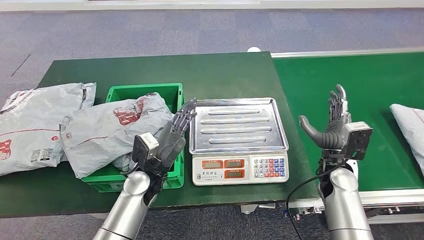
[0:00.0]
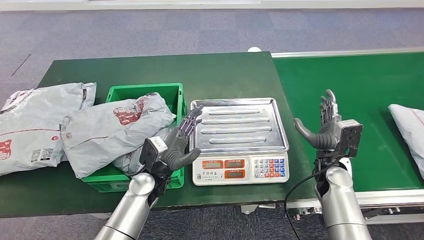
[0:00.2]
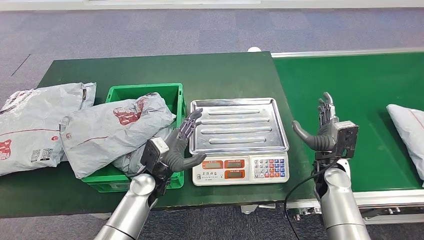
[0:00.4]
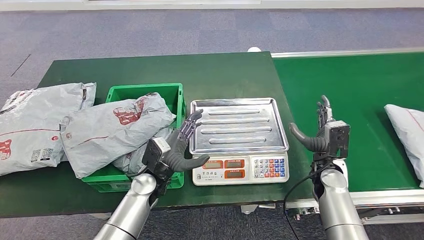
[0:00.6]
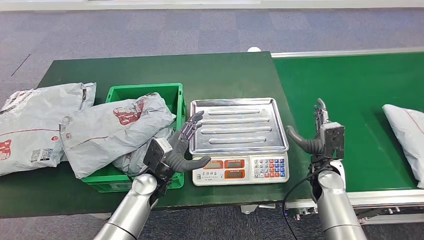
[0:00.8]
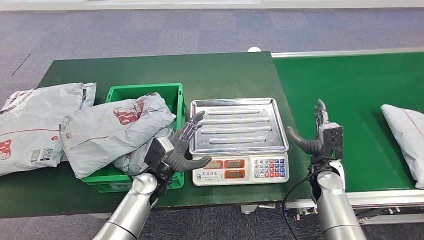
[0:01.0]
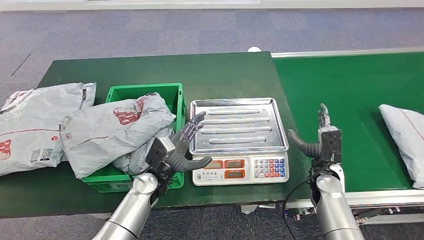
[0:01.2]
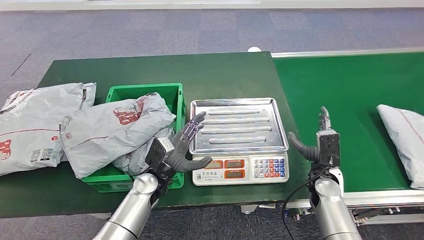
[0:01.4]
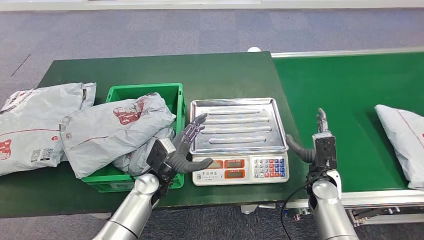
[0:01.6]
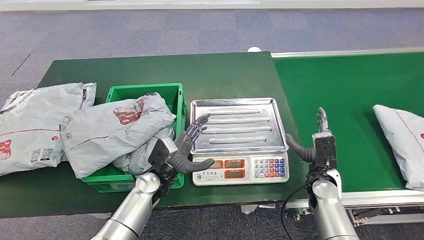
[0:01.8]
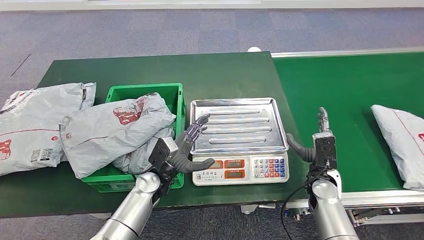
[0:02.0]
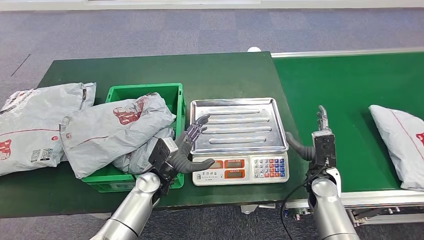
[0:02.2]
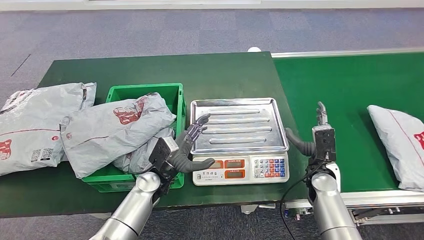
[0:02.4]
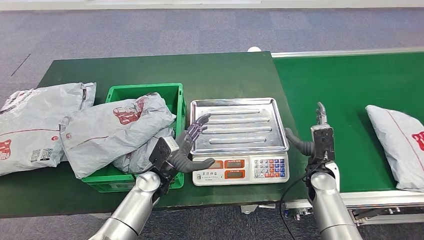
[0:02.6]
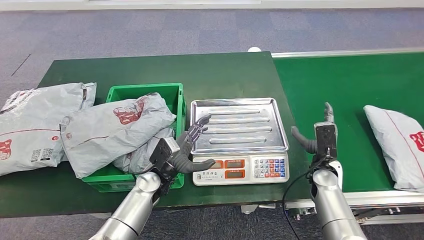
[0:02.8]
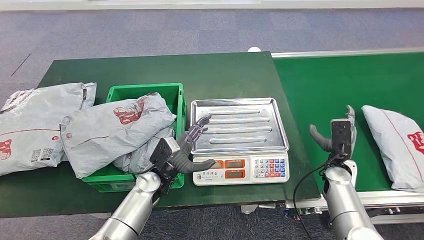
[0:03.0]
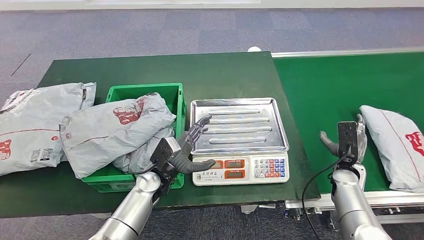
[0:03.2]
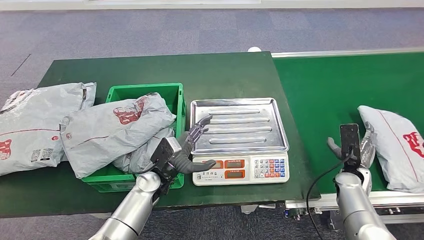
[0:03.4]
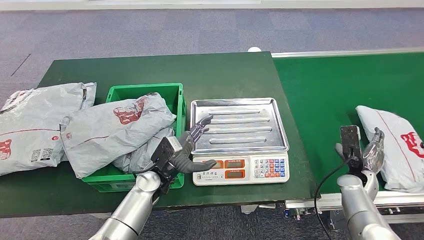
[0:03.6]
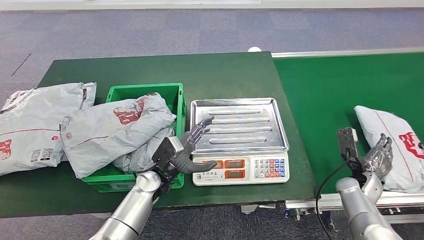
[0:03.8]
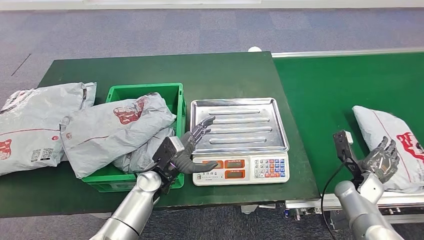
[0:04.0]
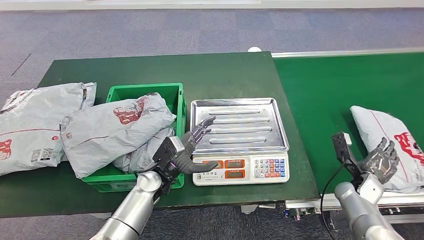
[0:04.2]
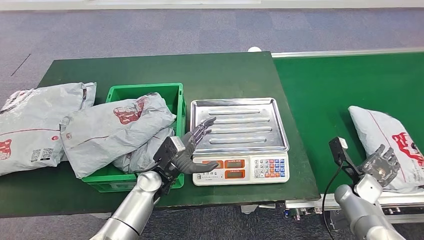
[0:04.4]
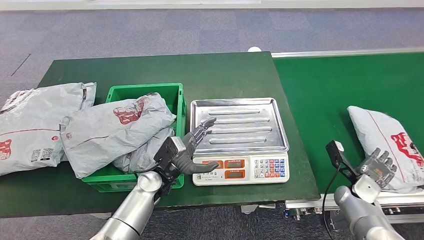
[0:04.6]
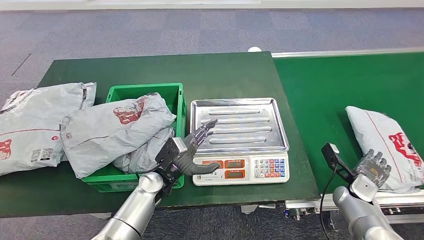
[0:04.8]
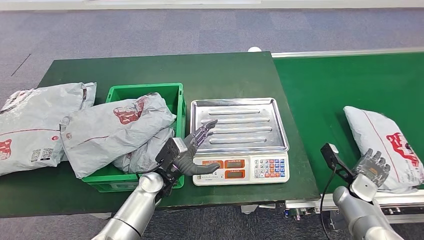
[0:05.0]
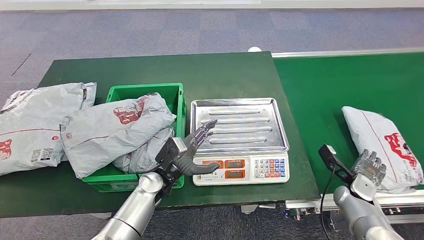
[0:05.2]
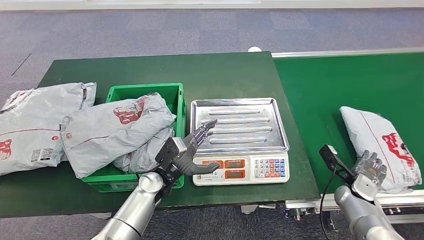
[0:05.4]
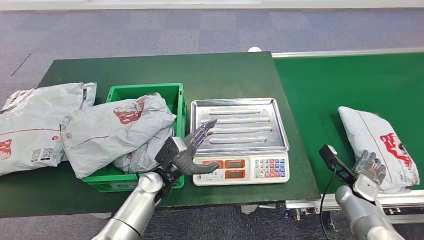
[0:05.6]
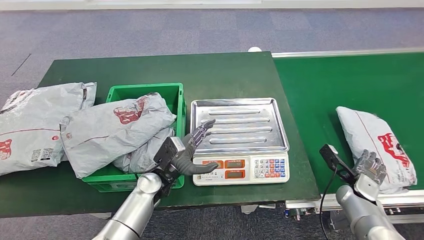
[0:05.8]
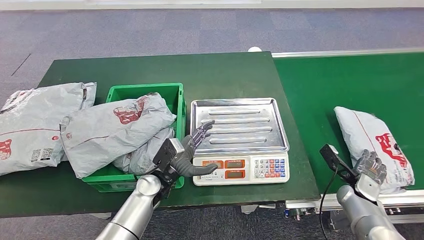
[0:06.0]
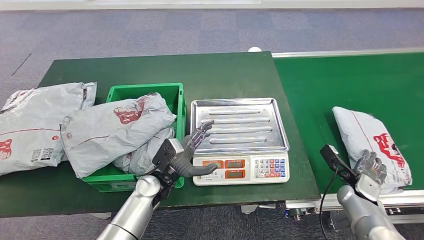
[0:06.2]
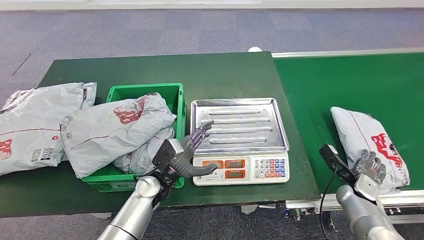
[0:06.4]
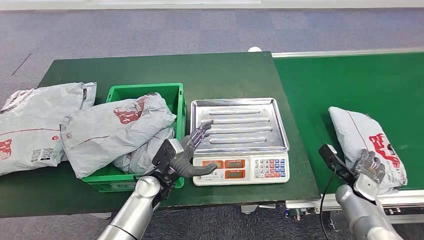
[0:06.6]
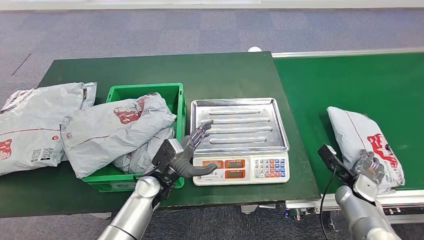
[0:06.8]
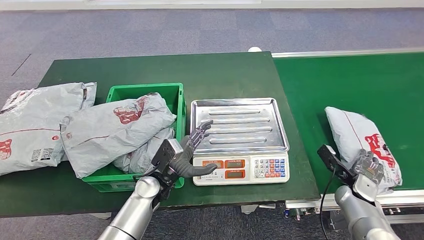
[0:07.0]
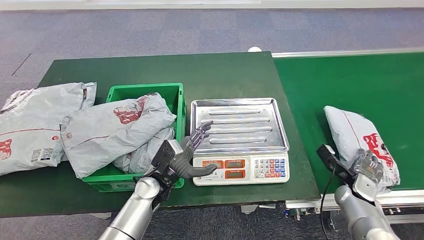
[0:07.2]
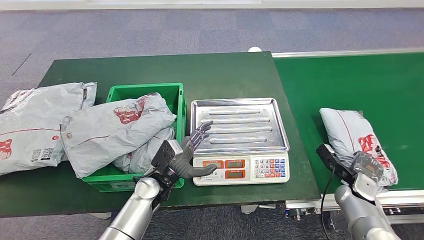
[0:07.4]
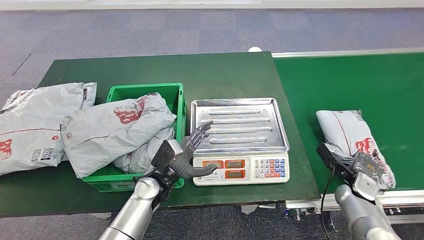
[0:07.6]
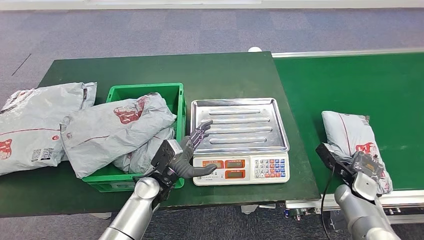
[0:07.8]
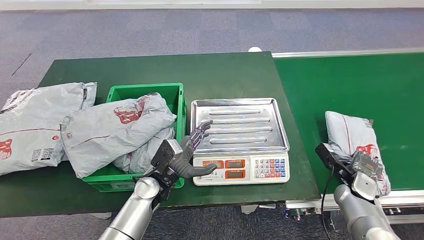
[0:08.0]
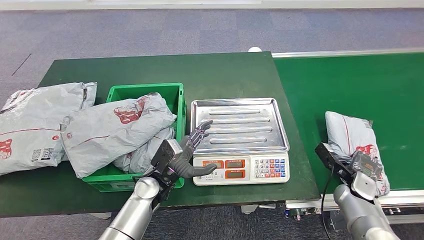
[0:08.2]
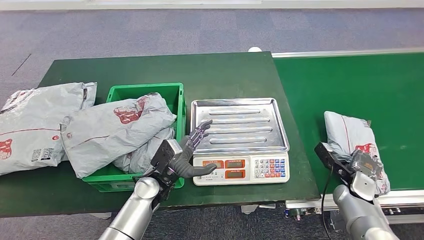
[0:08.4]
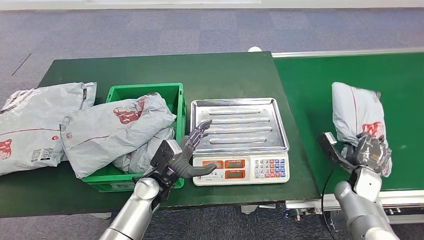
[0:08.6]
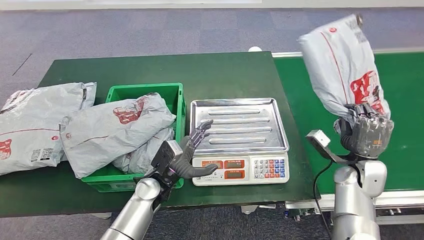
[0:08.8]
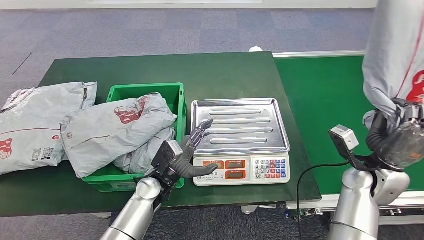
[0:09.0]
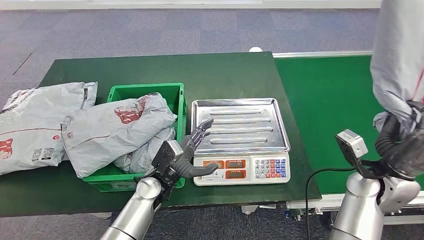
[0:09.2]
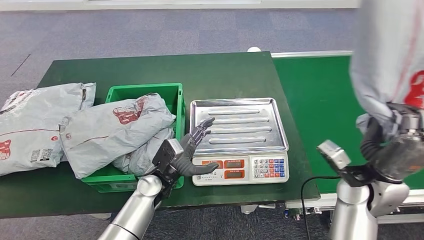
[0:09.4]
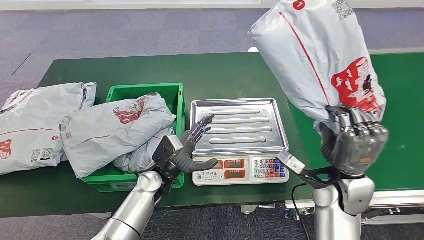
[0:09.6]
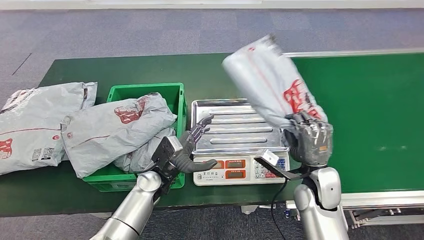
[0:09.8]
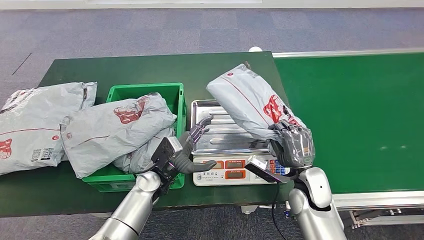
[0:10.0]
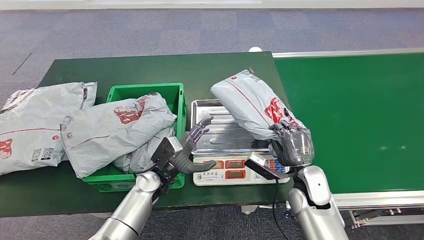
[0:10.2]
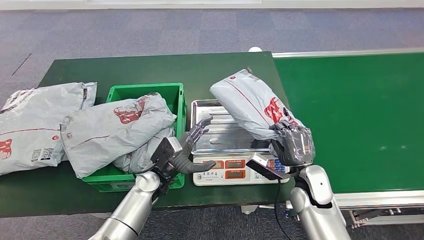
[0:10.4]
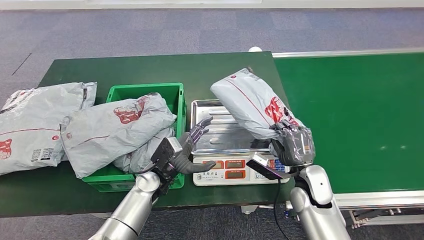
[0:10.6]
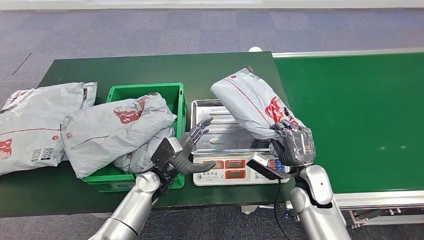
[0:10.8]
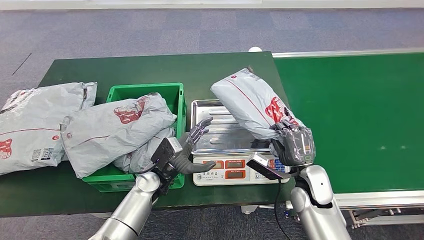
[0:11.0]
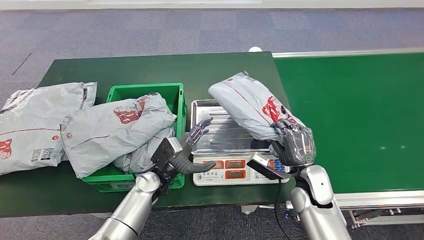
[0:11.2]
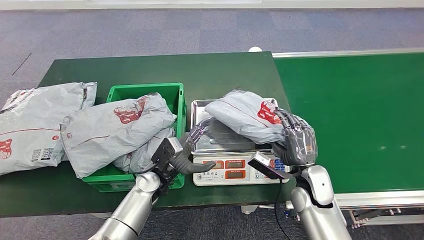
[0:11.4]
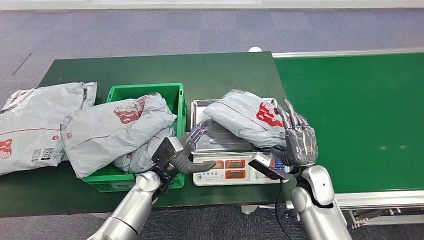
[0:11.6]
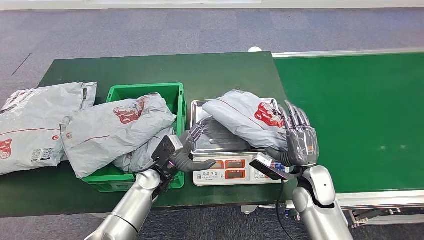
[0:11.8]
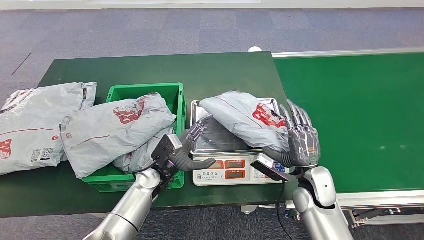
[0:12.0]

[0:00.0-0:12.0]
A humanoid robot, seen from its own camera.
Step, 0:08.0 to 0:08.8: Pick up the parcel from the conveyor belt.
0:00.0 to 0:01.6: The right hand travels downward by about 5 cm.
0:01.6 to 0:03.0: The right hand is displaced to the right by some 5 cm.
0:03.0 to 0:04.4: The right hand is displaced to the right by roughly 5 cm.
0:04.4 to 0:06.0: The hands make only small movements.
0:06.0 to 0:07.6: Both hands stay about where they are.
0:07.6 to 0:09.0: The right hand moves upward and to the left, some 15 cm.
0:10.4 to 0:12.0: The hands stay close to where they were, moving slightly.

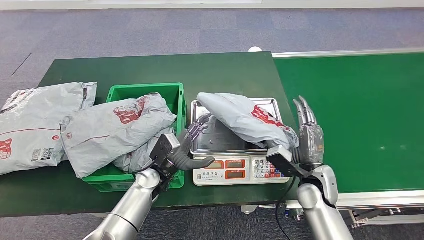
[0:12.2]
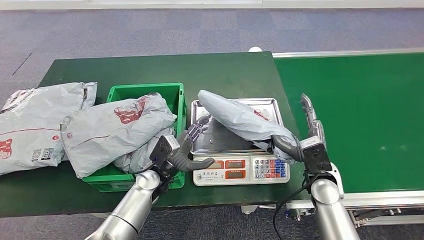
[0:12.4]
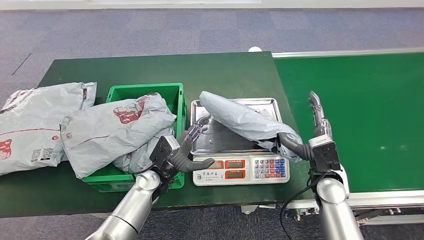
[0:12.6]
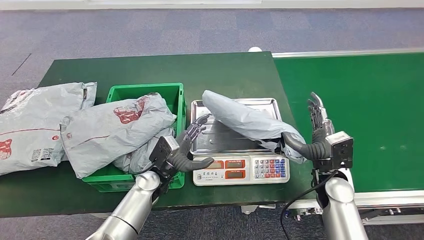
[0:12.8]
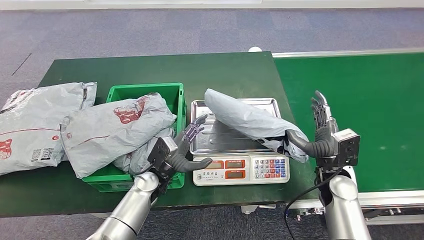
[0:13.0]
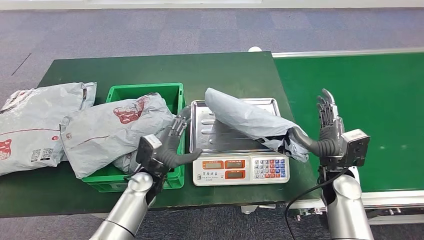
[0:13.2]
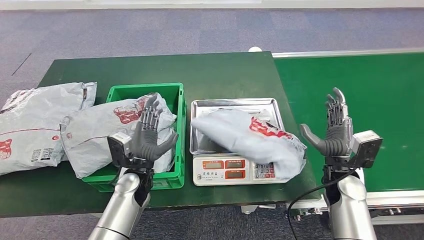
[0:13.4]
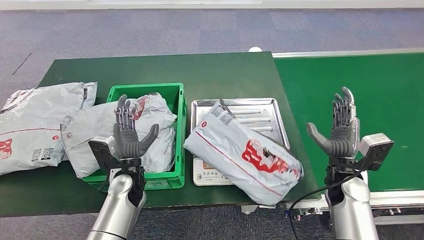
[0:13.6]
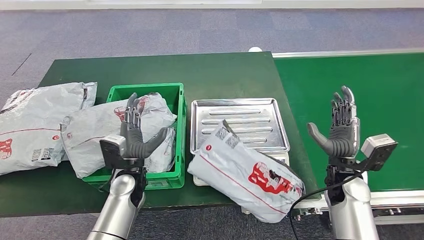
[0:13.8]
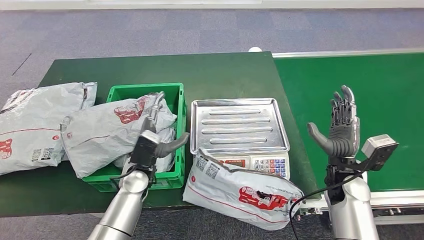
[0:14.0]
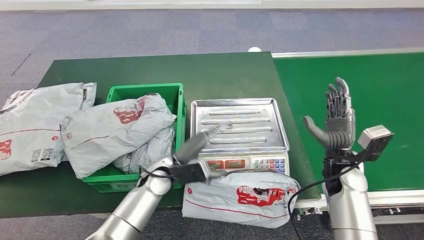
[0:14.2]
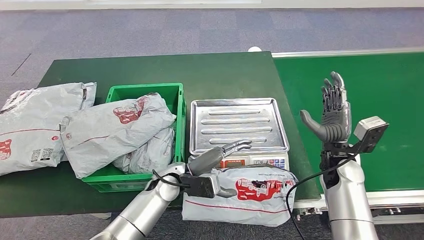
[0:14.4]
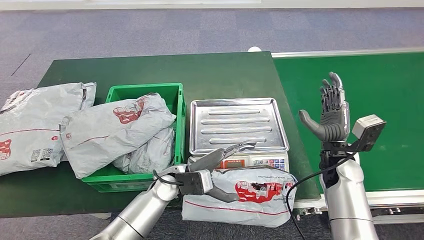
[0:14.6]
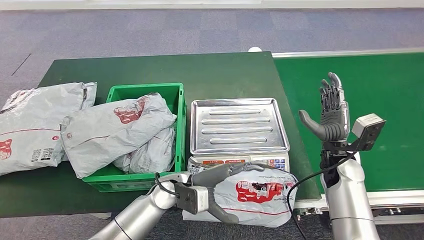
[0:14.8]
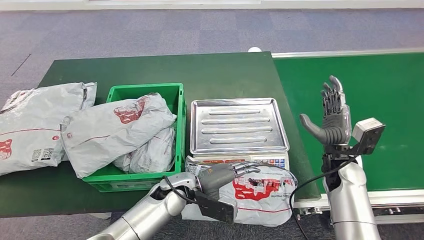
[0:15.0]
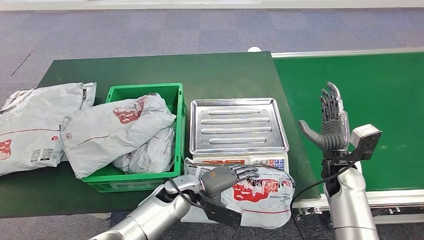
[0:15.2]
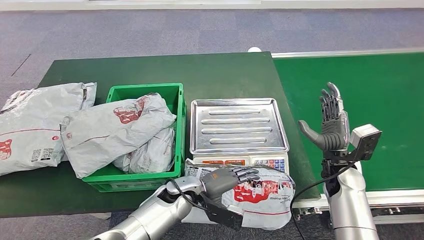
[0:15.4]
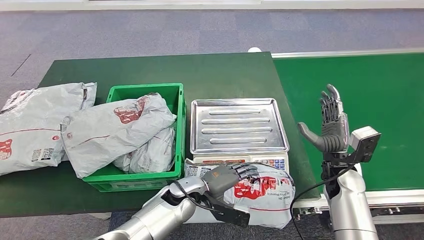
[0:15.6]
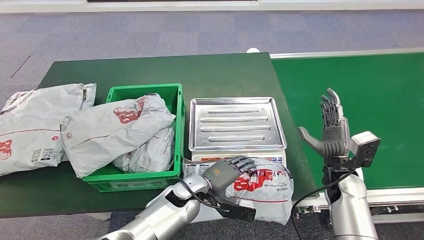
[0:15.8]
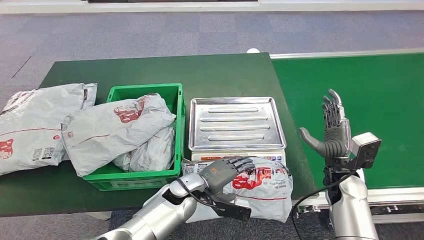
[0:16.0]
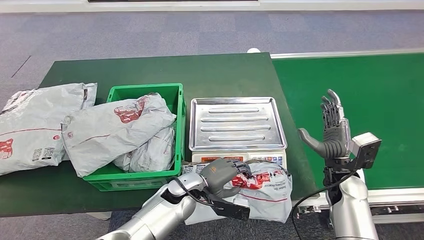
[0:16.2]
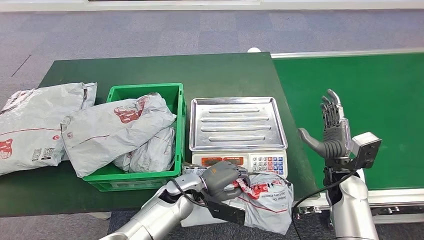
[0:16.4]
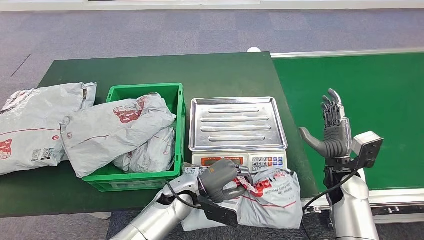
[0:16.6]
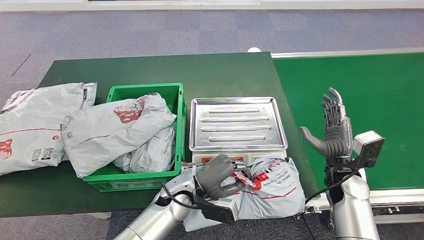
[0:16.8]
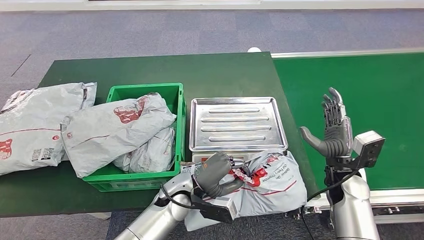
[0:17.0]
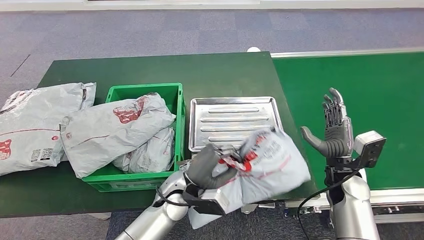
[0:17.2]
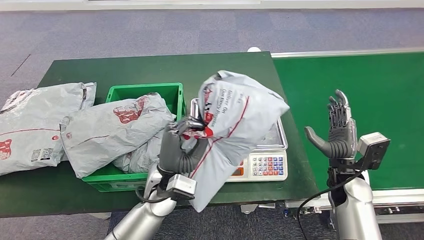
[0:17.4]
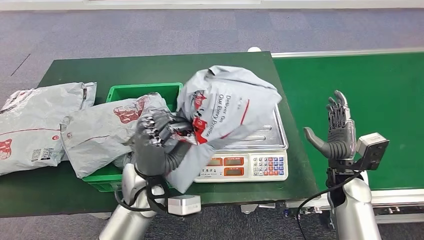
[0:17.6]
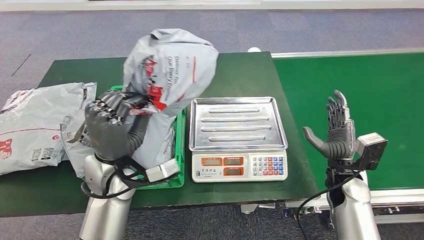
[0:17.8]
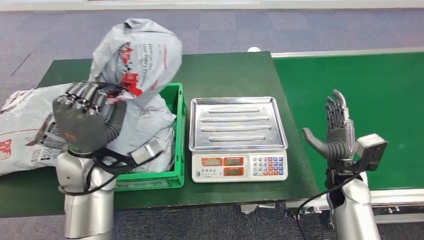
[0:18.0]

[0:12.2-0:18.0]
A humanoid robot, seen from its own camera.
Step, 0:16.2 to 0:17.8: Pick up the parcel from the inbound machine.
0:13.6 to 0:15.0: The left hand moves to the right, approximately 10 cm.
